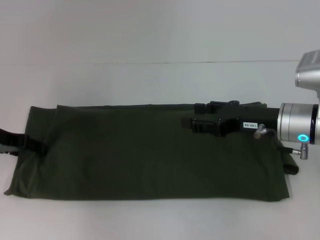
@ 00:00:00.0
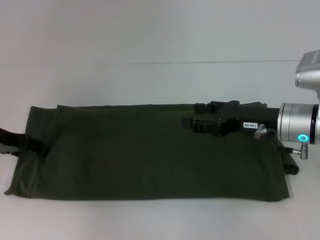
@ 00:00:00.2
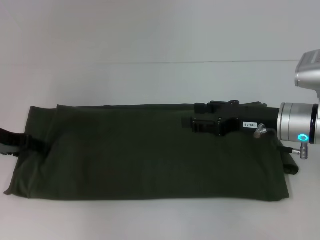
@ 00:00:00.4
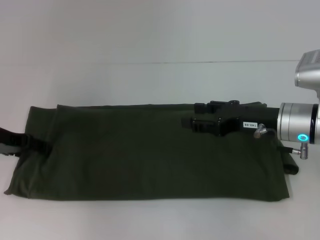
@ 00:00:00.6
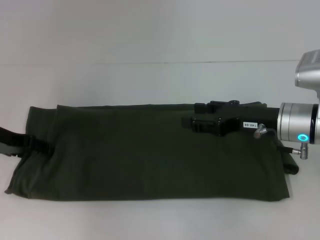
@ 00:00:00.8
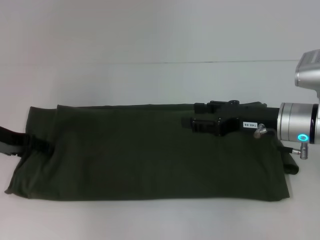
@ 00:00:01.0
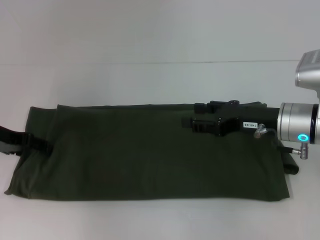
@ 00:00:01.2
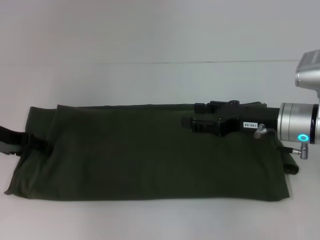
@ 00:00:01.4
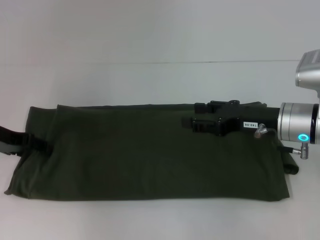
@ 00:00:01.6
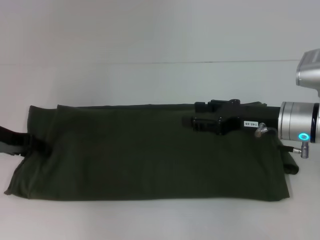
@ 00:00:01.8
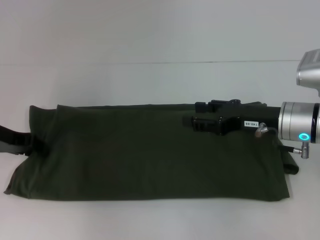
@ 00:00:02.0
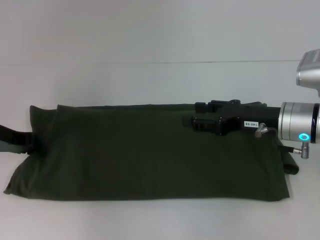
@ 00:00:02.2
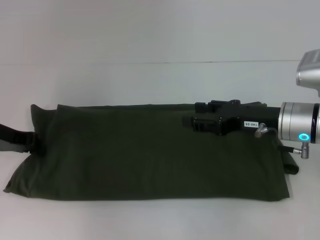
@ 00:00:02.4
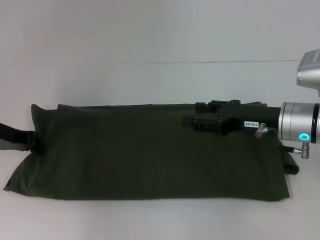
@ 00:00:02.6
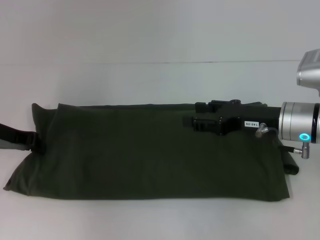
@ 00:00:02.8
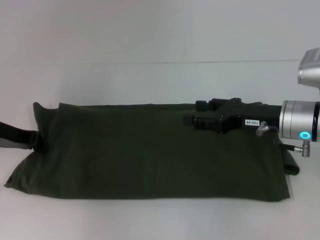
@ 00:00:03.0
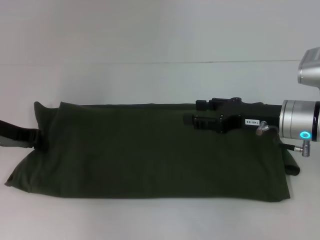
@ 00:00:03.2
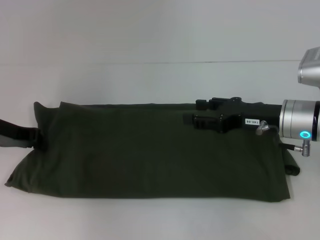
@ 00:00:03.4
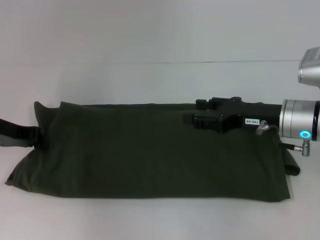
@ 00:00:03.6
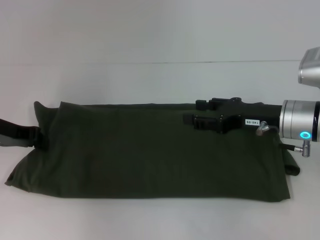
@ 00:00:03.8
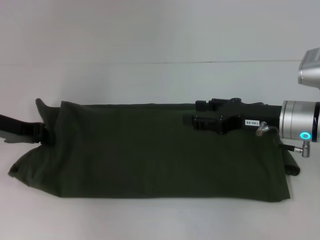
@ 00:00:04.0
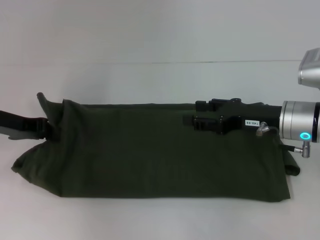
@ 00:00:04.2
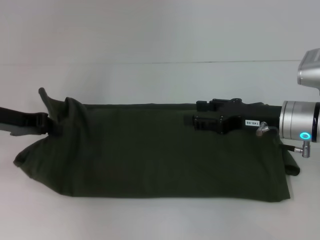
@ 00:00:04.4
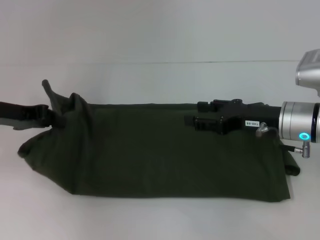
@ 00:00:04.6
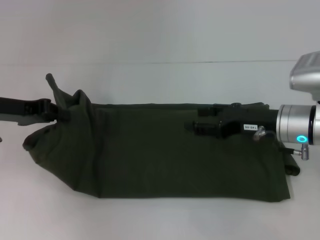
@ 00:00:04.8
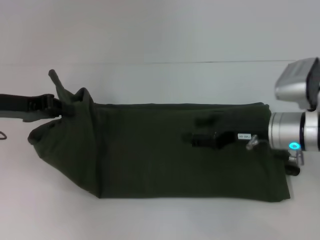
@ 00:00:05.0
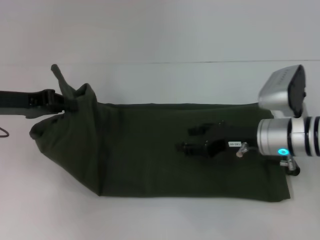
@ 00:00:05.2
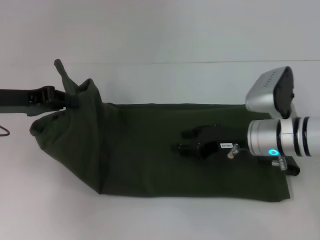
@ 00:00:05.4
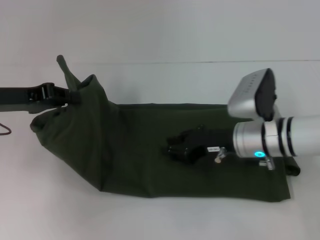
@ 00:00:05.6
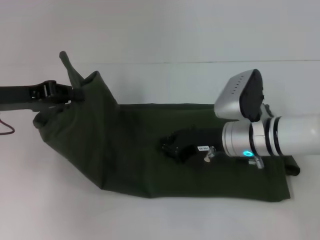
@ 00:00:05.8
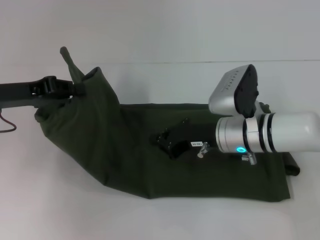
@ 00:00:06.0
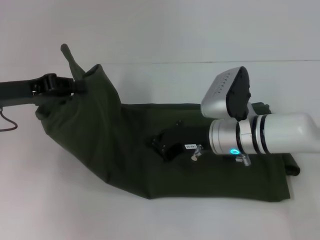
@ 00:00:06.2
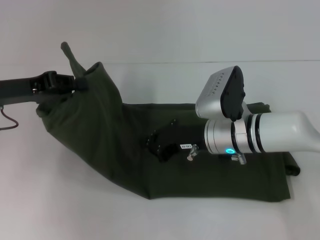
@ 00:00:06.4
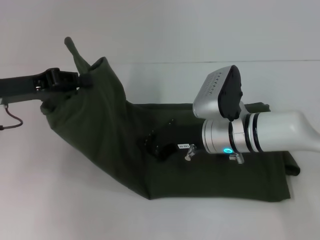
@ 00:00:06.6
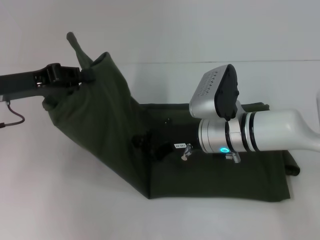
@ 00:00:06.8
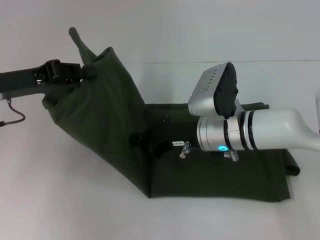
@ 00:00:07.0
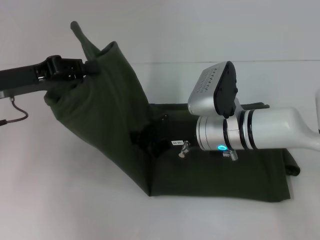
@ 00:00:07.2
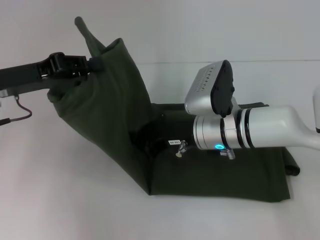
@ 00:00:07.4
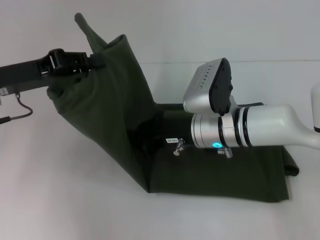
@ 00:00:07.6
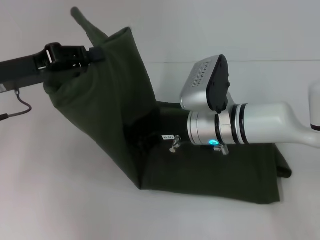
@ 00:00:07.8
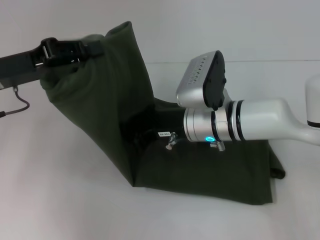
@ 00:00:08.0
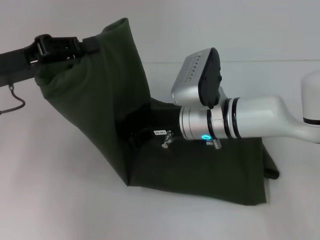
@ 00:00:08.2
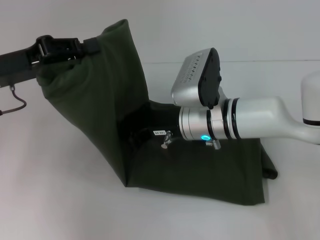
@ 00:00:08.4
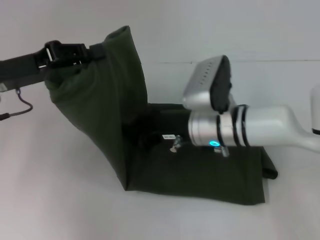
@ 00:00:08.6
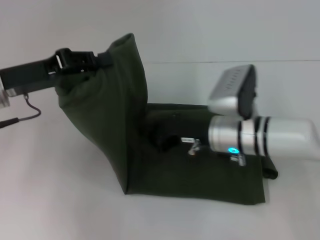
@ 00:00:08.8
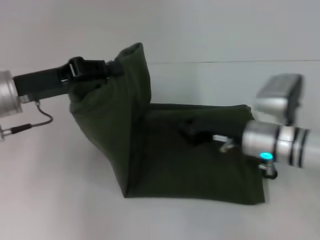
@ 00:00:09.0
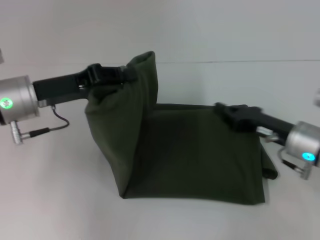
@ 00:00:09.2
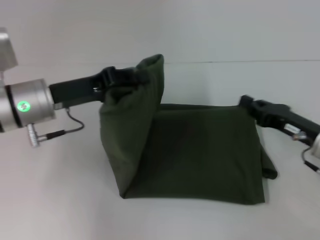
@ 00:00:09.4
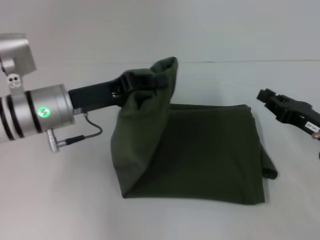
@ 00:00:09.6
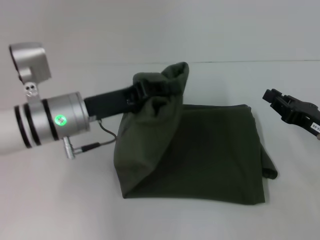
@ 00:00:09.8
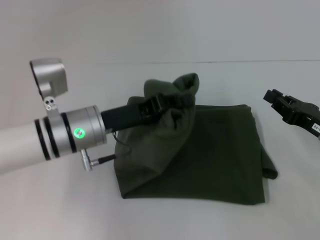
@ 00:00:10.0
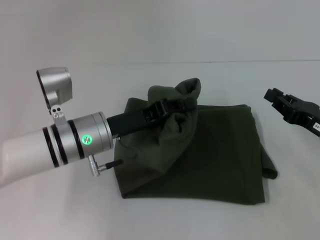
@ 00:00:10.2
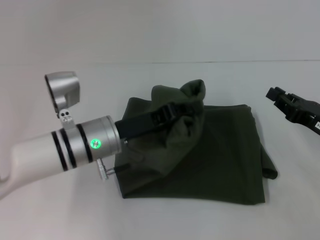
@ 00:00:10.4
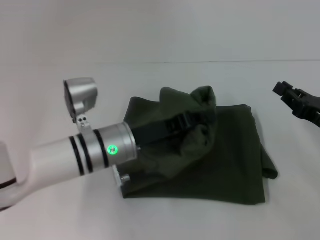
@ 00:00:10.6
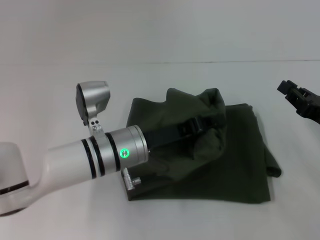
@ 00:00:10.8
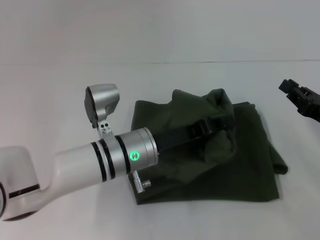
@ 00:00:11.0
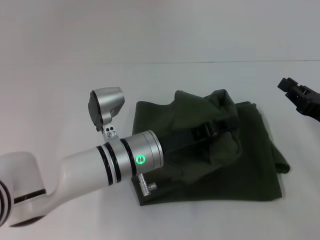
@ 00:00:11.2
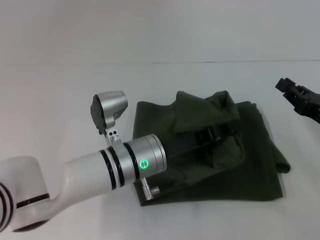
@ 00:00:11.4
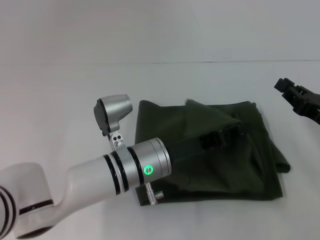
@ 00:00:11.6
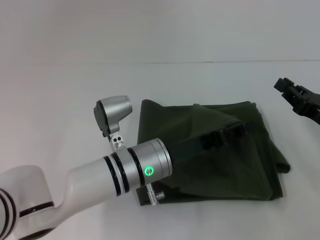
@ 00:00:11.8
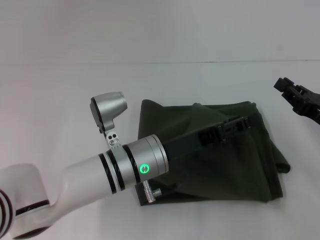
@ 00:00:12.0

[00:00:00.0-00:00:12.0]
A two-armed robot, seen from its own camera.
00:00:00.0 to 00:00:01.6: Both grippers stay put.
00:00:01.6 to 00:00:03.0: The left gripper closes its fingers.
00:00:03.0 to 00:00:04.4: The grippers make only small movements.
00:00:04.4 to 00:00:06.0: The right gripper goes about 10 cm to the left, and closes its fingers.
00:00:07.6 to 00:00:09.0: The right gripper shifts roughly 10 cm to the right.
00:00:09.0 to 00:00:10.4: The left gripper moves to the right and downward, approximately 15 cm; the right gripper is displaced to the right by approximately 15 cm.
00:00:10.4 to 00:00:12.0: The left gripper goes approximately 5 cm to the right, and opens.

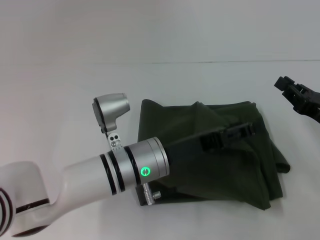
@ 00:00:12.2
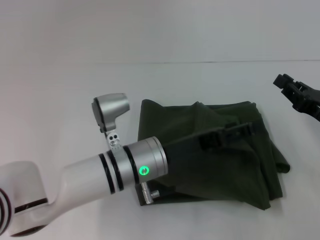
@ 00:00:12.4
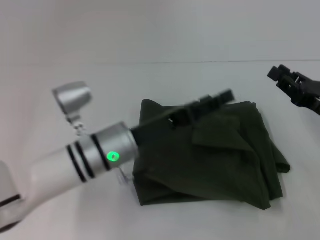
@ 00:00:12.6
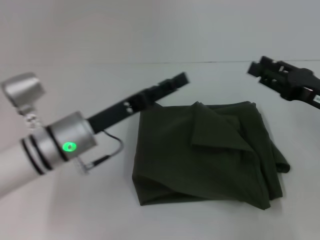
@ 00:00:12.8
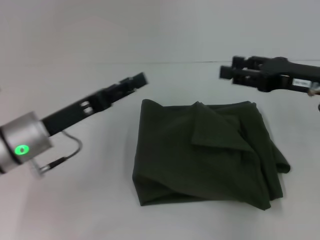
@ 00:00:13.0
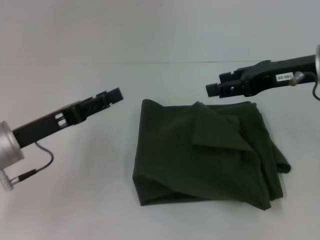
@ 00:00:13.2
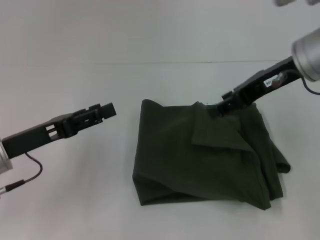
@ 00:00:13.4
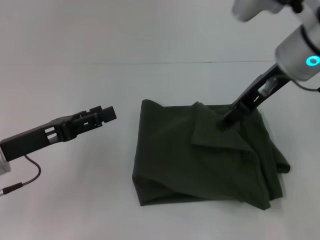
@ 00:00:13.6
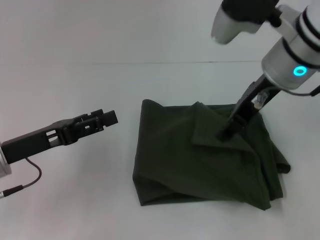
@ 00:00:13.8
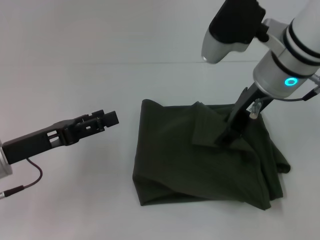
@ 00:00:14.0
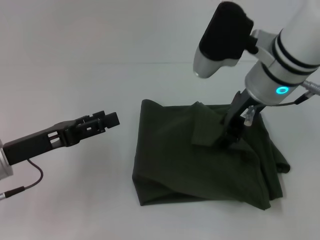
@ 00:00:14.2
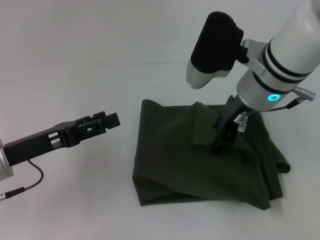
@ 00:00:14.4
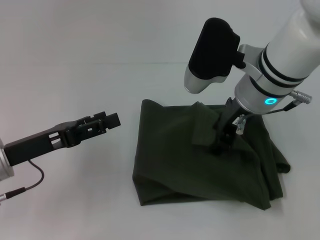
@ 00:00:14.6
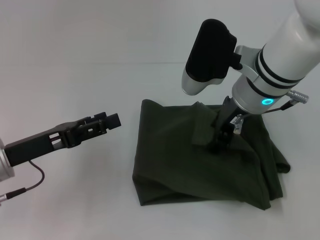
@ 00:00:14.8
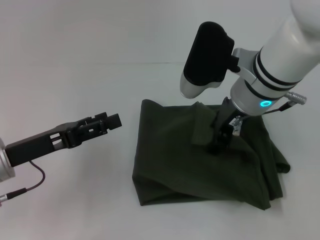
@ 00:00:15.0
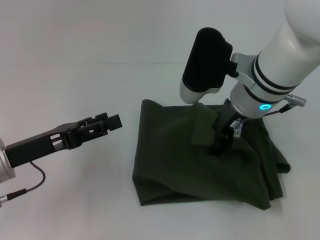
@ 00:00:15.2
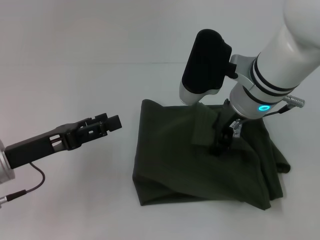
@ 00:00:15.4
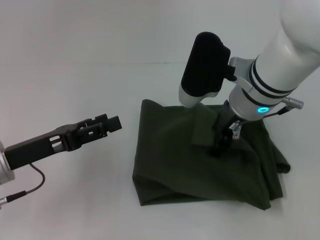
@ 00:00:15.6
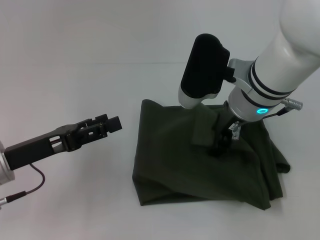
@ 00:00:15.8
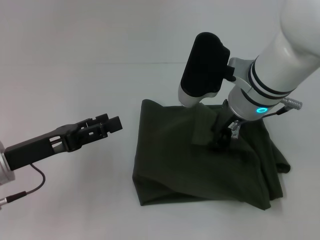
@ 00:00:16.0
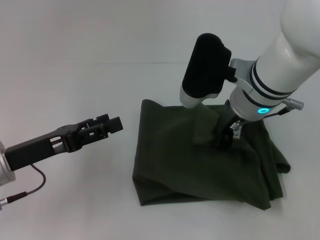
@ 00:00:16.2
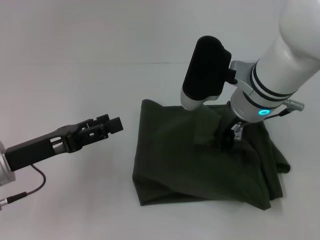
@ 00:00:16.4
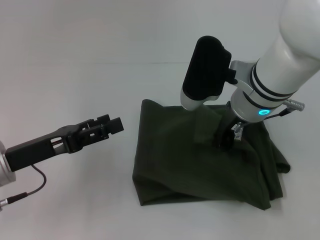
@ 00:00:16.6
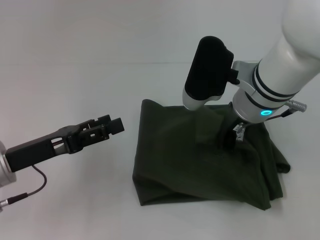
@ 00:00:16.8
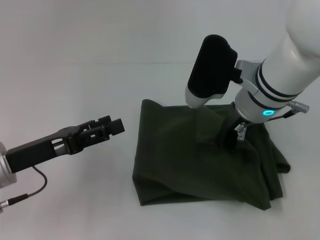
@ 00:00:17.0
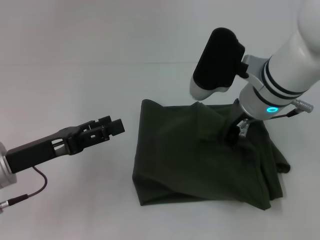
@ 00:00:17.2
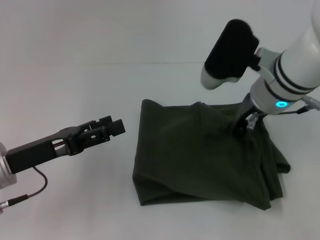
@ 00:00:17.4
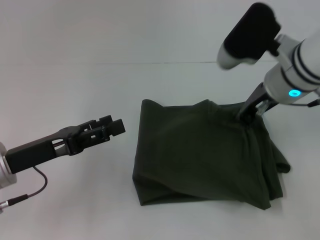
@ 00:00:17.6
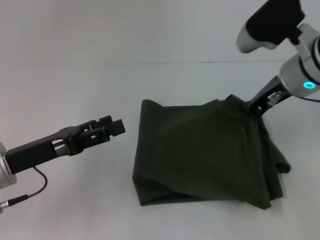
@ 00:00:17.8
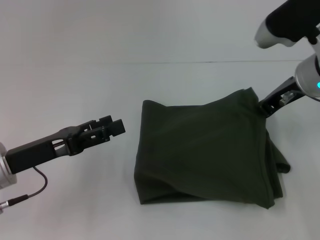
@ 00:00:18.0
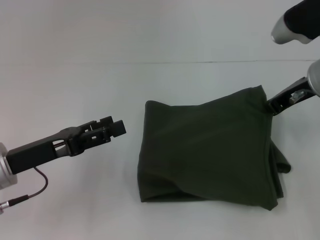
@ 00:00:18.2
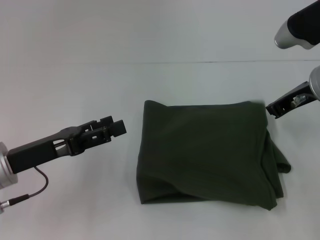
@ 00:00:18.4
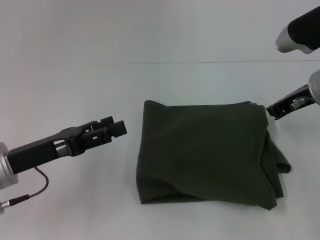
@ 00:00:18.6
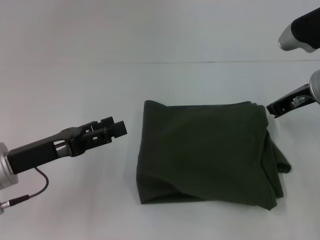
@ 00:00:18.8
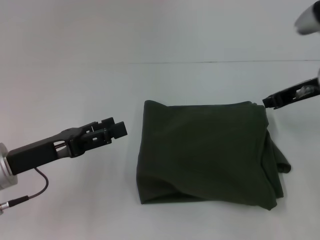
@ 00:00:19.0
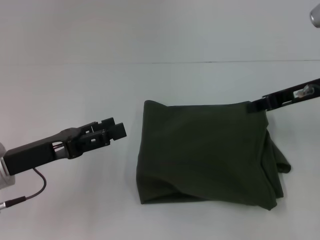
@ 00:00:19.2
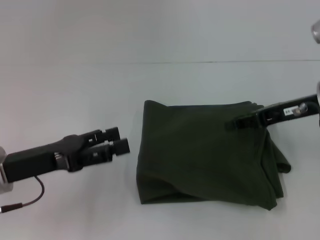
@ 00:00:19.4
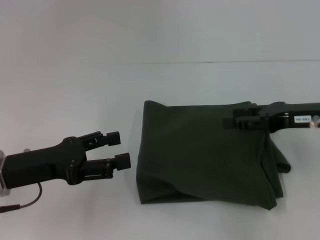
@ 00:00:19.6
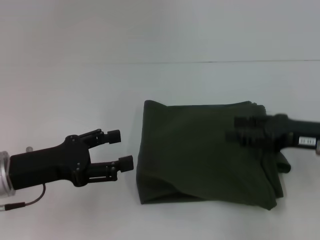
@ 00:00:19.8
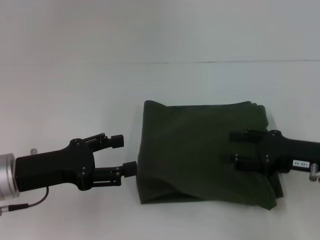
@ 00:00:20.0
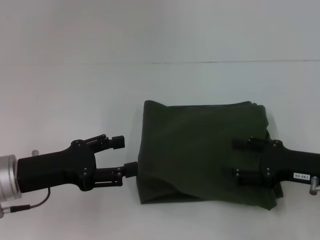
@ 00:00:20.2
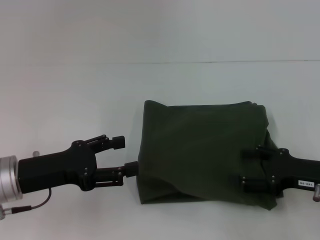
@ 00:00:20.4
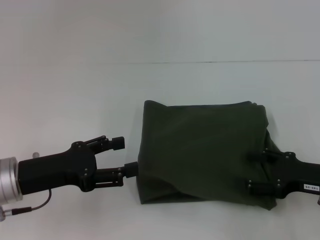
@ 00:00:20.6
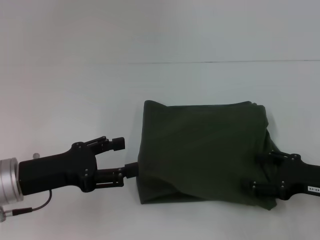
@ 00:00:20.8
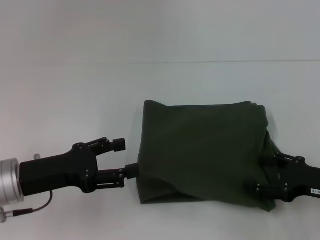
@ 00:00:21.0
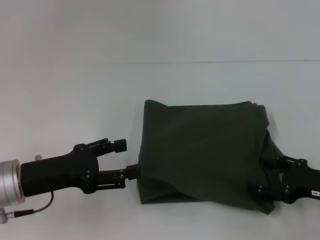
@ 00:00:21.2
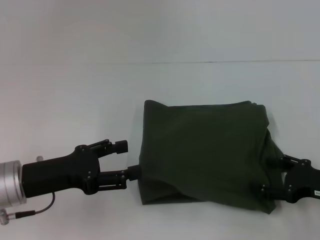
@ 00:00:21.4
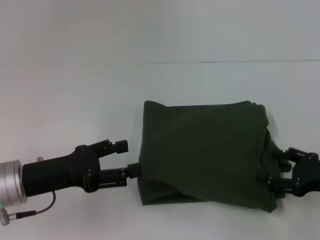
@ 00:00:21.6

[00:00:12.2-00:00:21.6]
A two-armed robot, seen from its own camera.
00:00:12.2 to 00:00:13.8: The left gripper moves to the left, about 20 cm, and opens its fingers. Meanwhile the right gripper shifts roughly 25 cm upward, to the left and forward, and opens up.
00:00:13.8 to 00:00:15.4: The right gripper travels downward by approximately 5 cm.
00:00:15.4 to 00:00:17.0: The right gripper closes.
00:00:17.0 to 00:00:18.4: The right gripper heads to the right, covering roughly 10 cm.
00:00:18.4 to 00:00:20.0: The right gripper moves backward and downward, some 15 cm, and opens its fingers.
00:00:20.0 to 00:00:21.6: The right gripper ends up approximately 5 cm from where it was.
